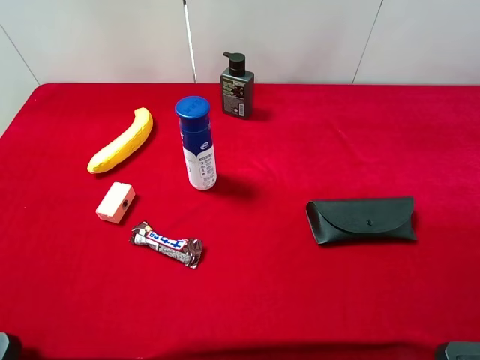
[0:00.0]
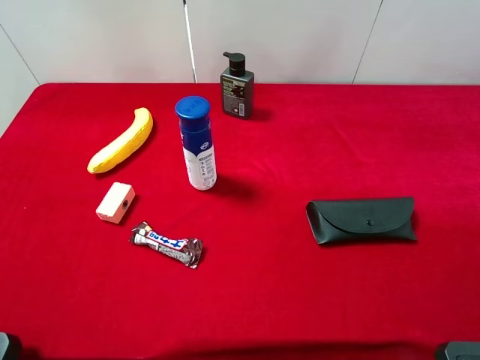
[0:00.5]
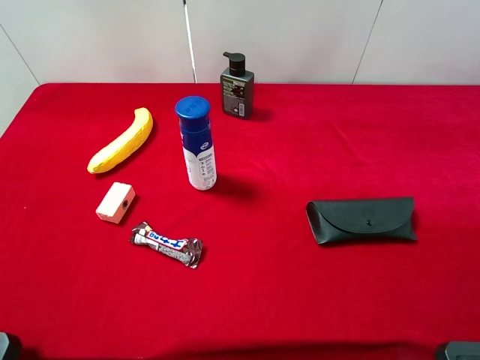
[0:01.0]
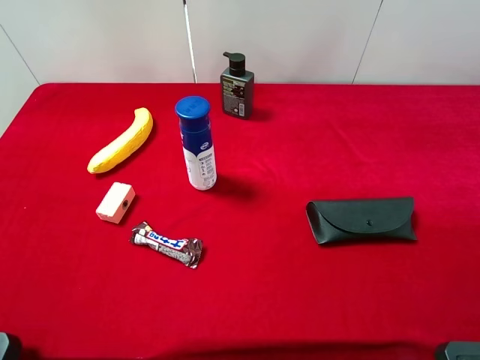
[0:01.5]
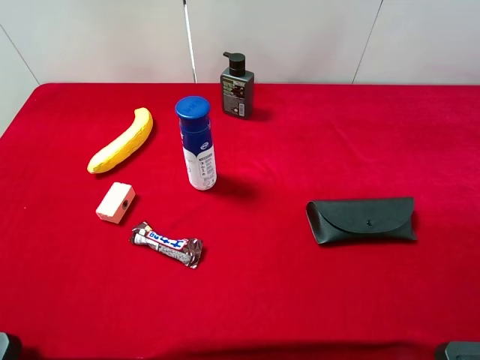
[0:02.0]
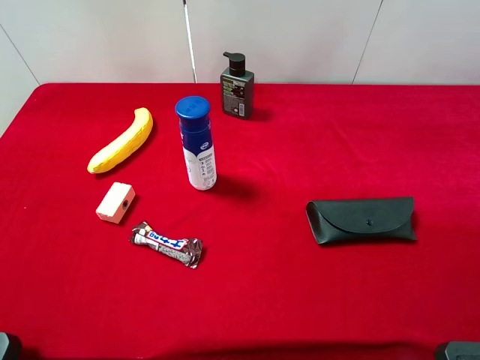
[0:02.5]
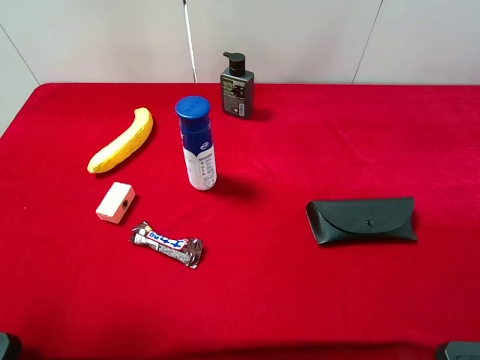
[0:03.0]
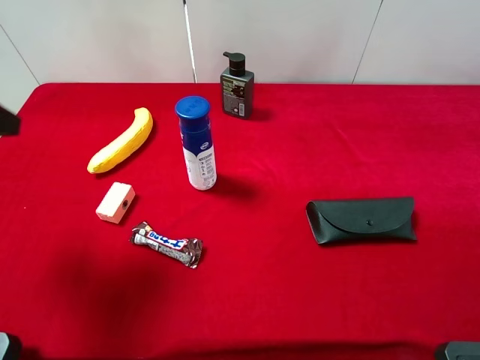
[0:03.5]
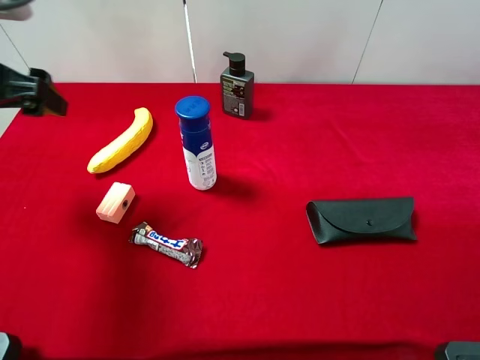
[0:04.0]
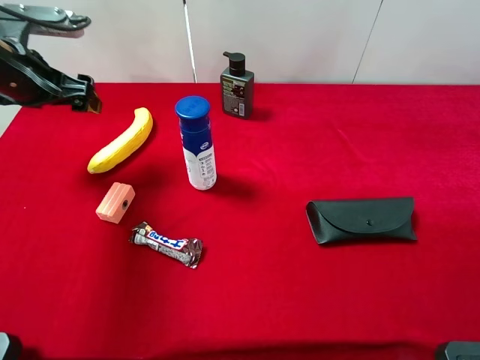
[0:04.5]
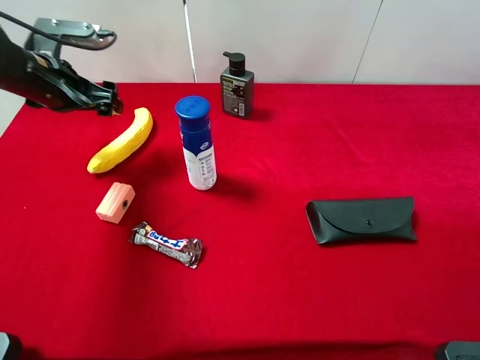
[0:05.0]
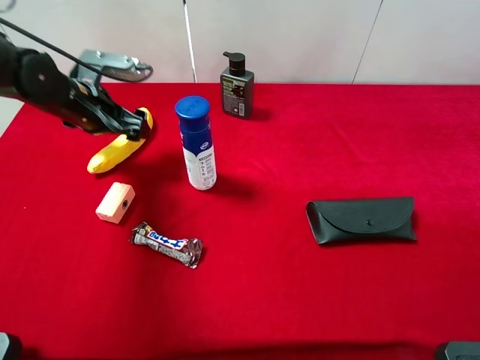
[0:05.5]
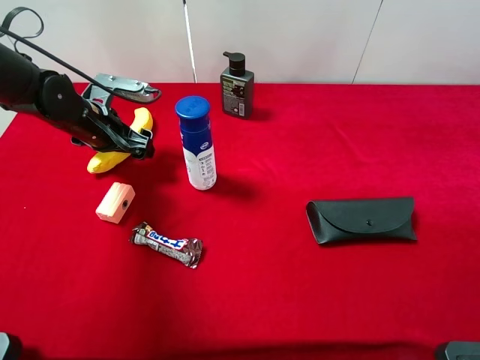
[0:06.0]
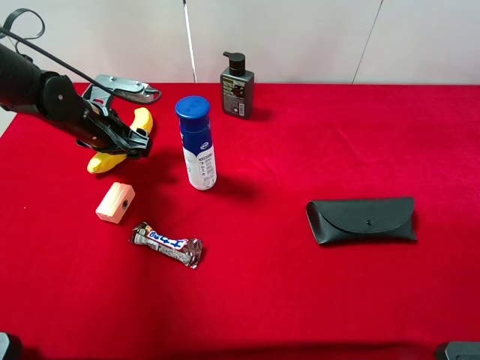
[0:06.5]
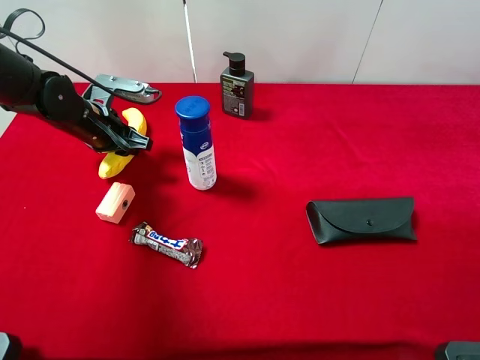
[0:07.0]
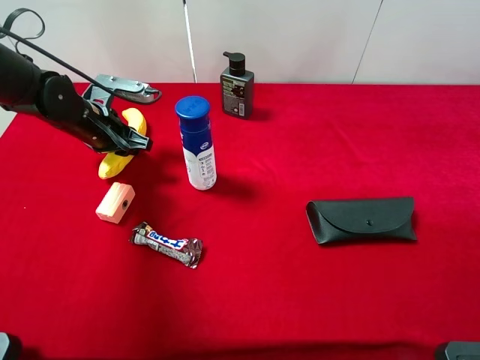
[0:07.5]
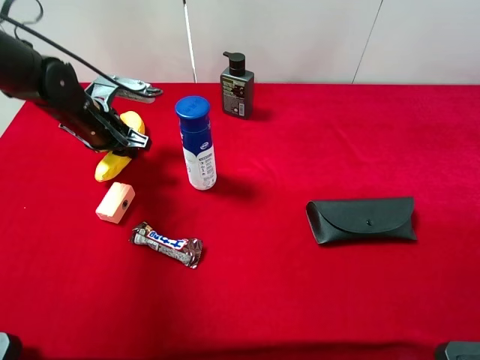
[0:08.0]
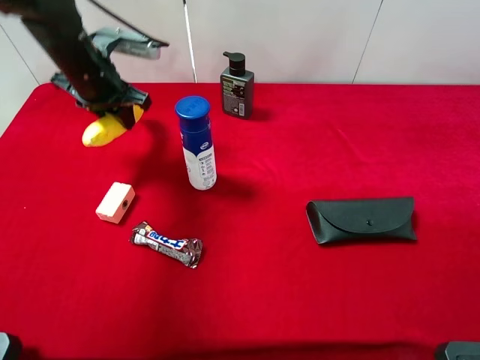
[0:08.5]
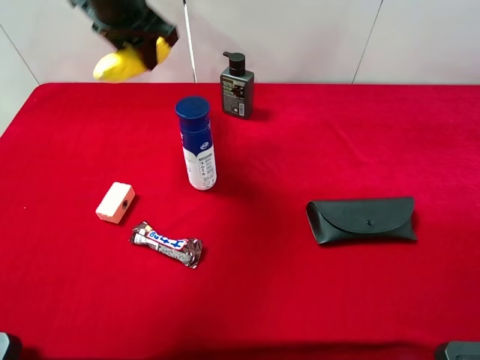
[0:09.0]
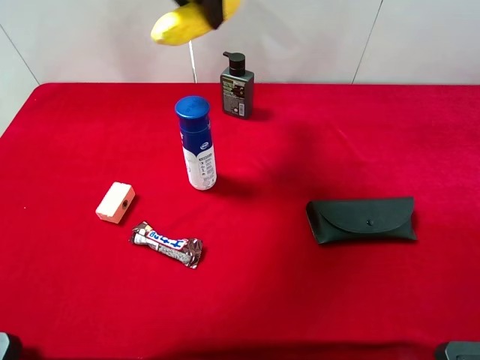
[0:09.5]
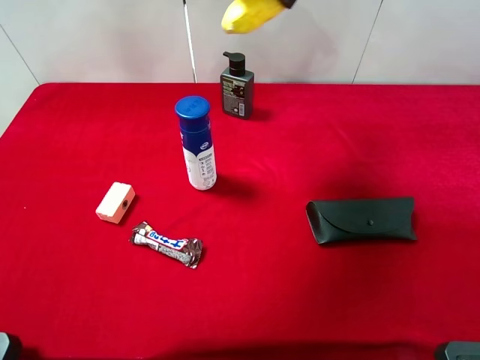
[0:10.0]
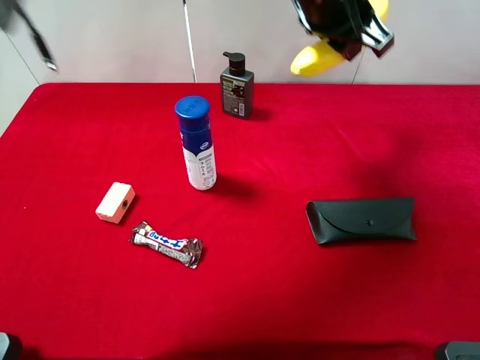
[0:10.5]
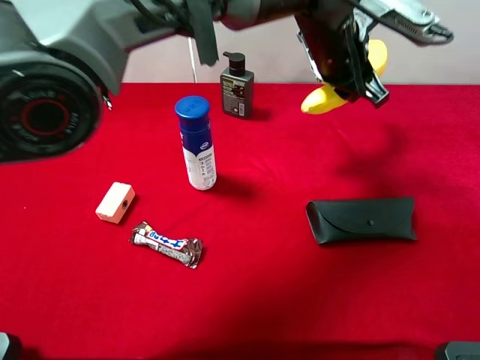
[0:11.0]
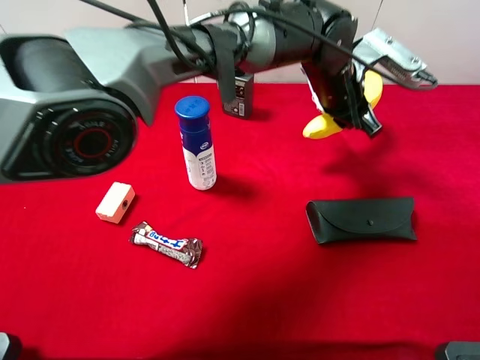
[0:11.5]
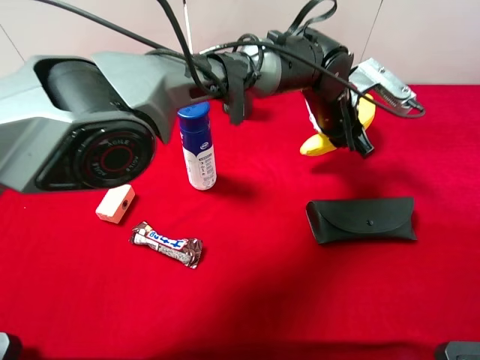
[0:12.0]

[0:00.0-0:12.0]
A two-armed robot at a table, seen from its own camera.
Task of the whole recording: the gripper move the object.
Step, 0:00.0 to 0:07.5: Grasp the banana with the left gripper.
0:00.0 to 0:02.0: The two grippers keep their place.
0:02.0 to 0:04.0: The left gripper is displaced forward by some 25 cm.
0:04.0 to 0:06.0: The left gripper travels downward, forward and to the right by approximately 20 cm.
0:06.0 to 0:08.0: The left gripper closes its fingers.
0:08.0 to 0:10.0: The left gripper heads upward and to the right, covering approximately 35 cm.
0:10.0 to 0:12.0: The left gripper travels downward and to the right by some 25 cm.

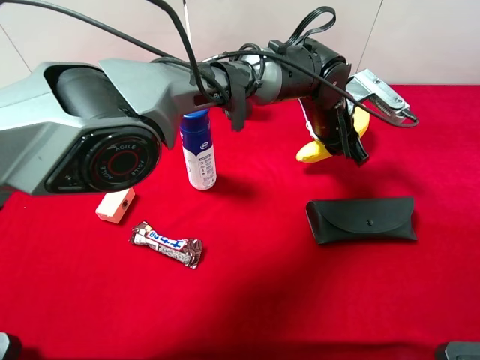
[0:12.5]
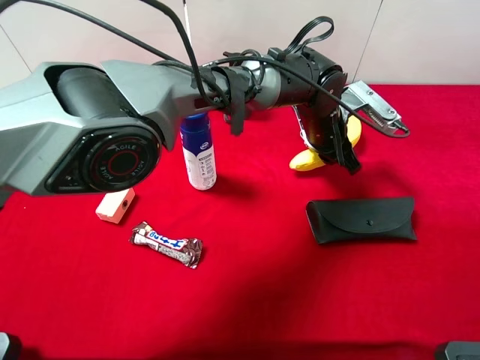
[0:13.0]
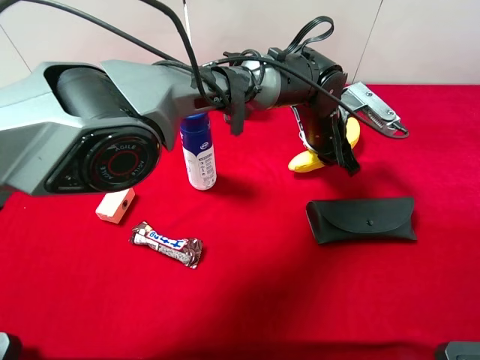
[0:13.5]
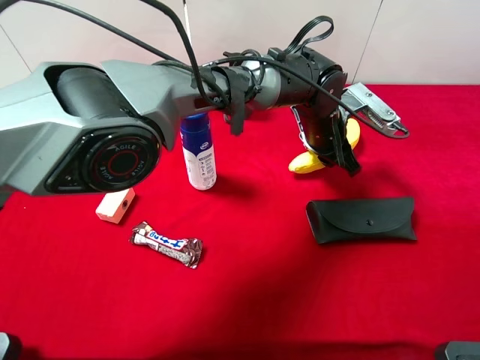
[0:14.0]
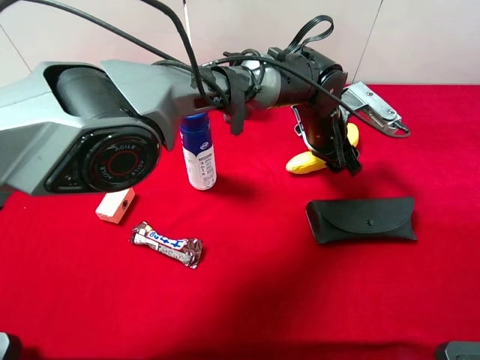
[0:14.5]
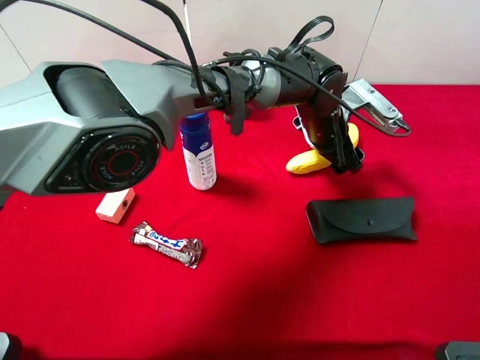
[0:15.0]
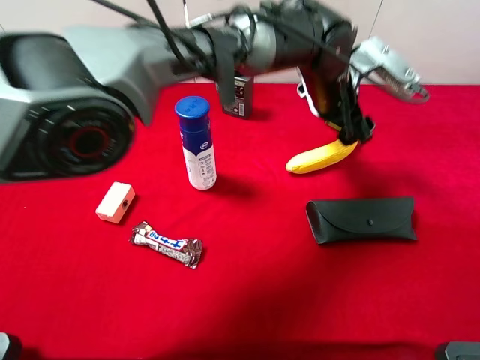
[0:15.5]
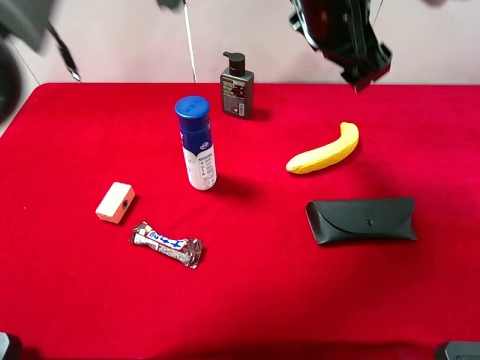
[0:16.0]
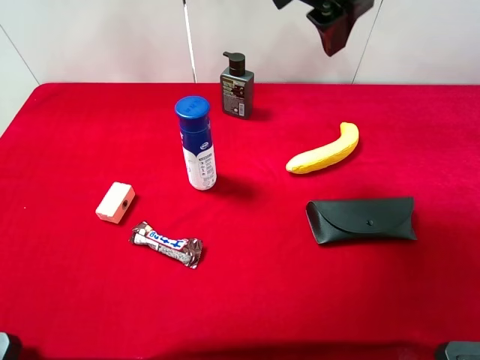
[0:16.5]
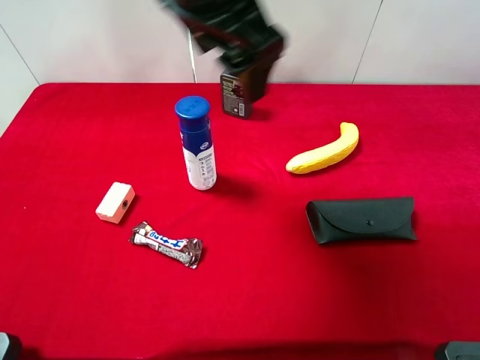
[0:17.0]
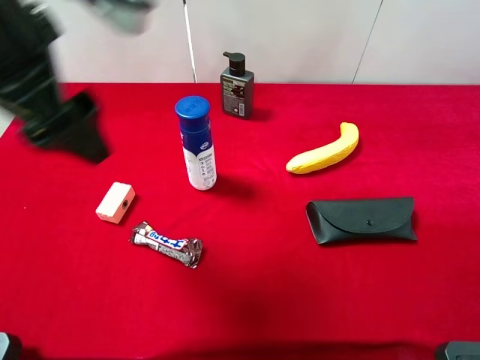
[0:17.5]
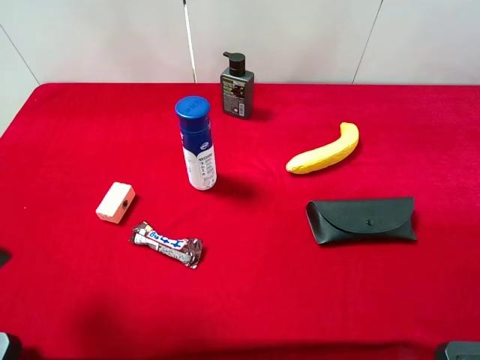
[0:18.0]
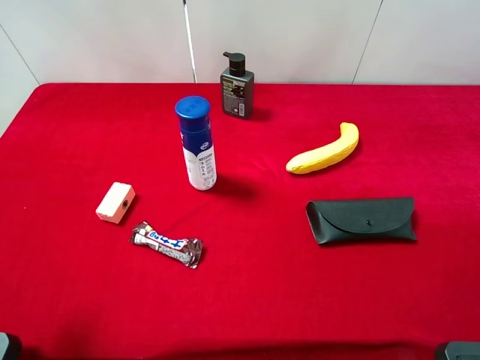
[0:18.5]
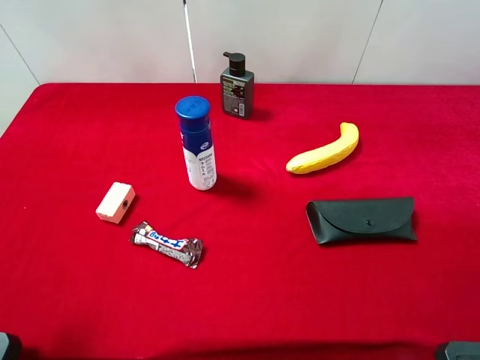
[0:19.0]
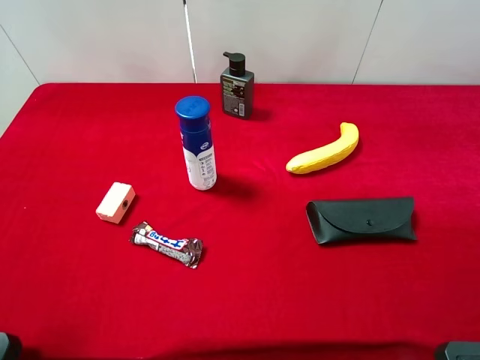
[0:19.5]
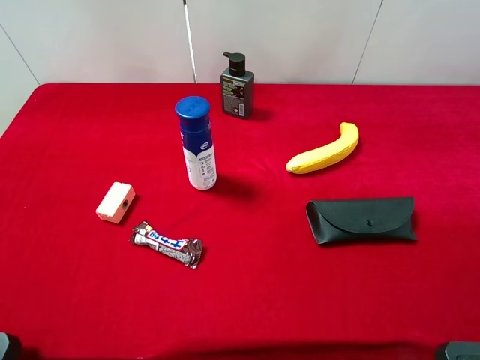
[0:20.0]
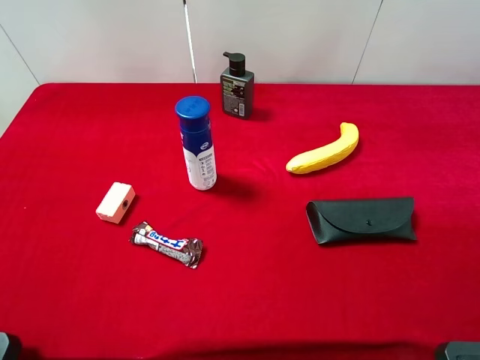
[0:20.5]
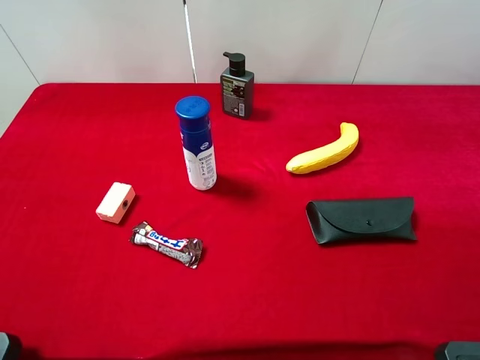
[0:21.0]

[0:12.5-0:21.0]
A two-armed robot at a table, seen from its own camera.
Task of the whole recording: the gripper move the object.
Step, 0:12.5 to 0:15.5: Place the banana on the table with the left gripper.
0:12.5 to 0:14.5: The left gripper opens up.
0:14.5 to 0:16.5: The left gripper moves upward, roughly 25 cm.
0:16.5 to 0:19.0: The left gripper is displaced to the left and backward by about 40 cm.

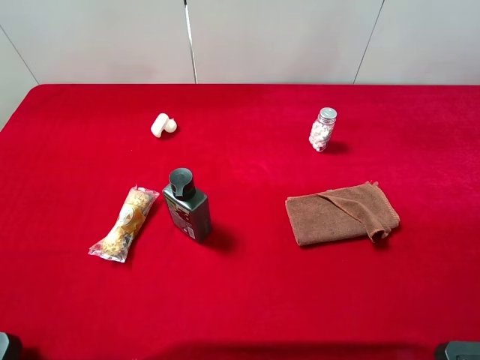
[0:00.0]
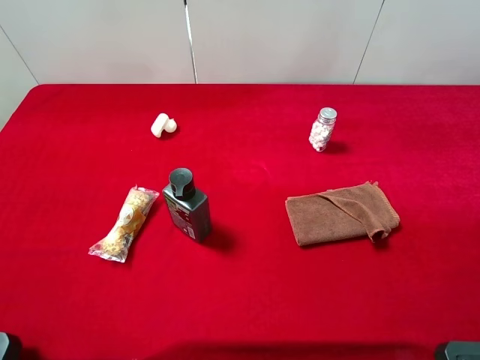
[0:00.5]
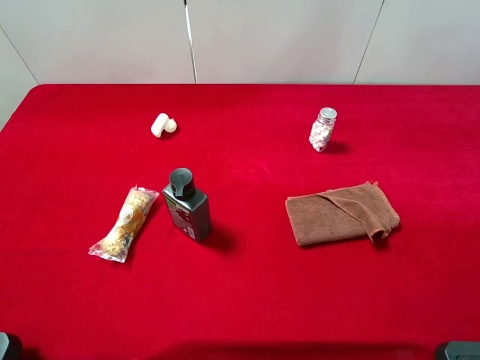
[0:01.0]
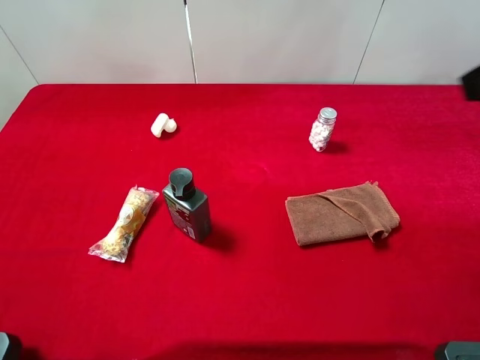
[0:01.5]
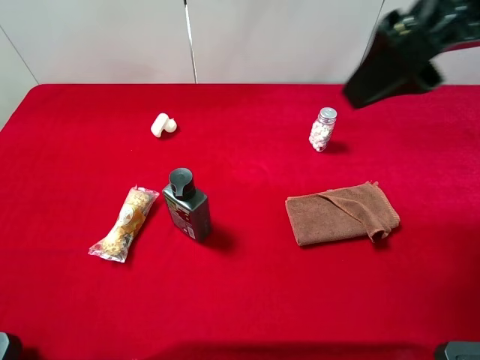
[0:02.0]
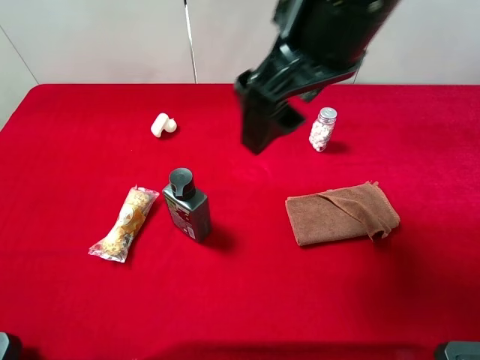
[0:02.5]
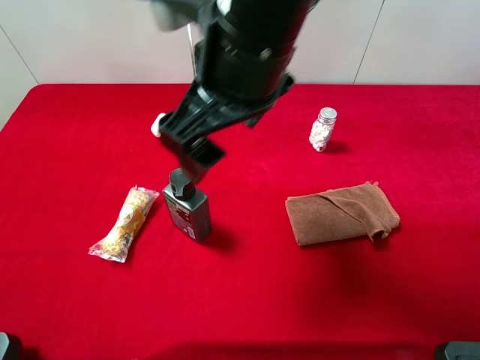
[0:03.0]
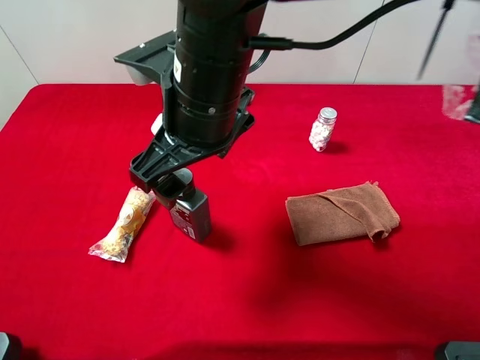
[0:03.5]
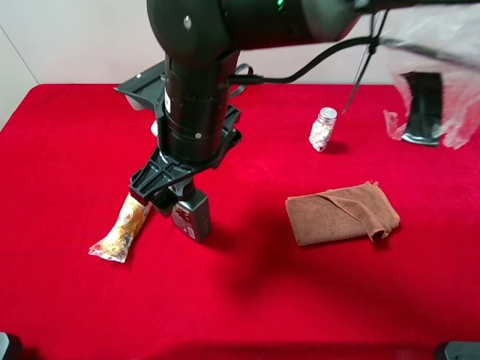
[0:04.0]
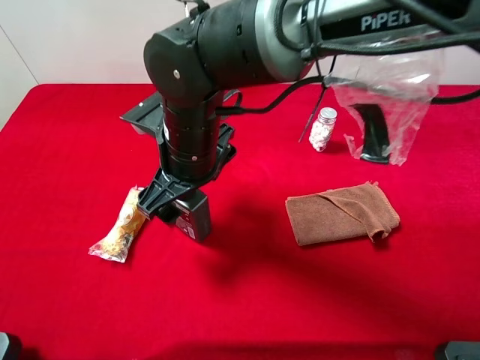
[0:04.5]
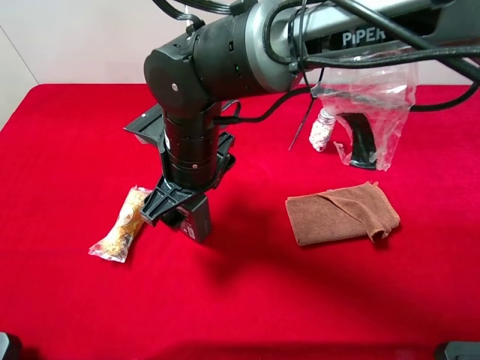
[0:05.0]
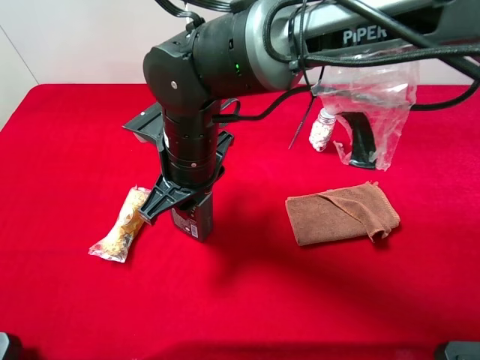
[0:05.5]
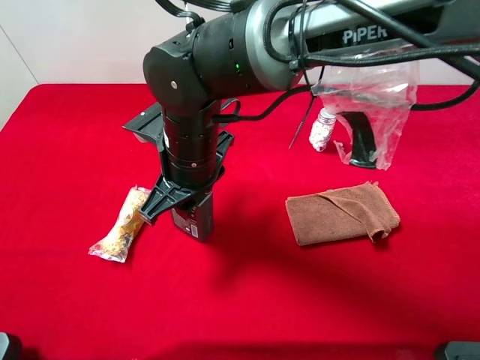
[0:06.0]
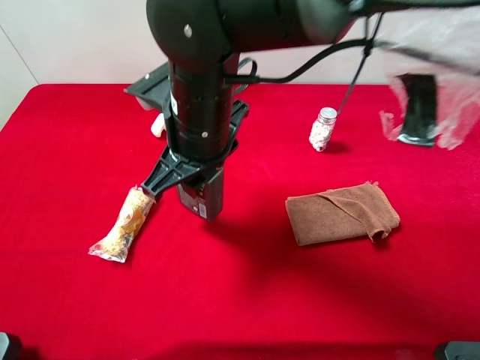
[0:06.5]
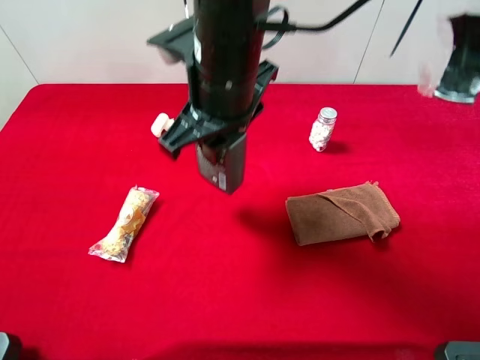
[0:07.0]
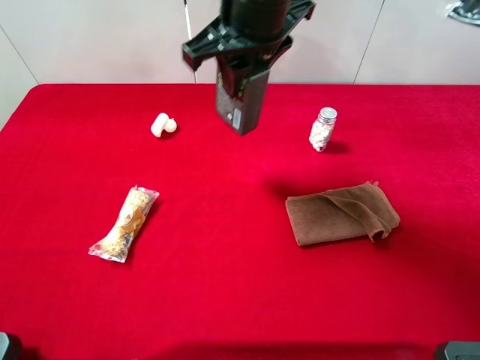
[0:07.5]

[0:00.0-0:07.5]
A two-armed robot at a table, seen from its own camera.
Task of the whole recording: the gripper move the object.
Step, 0:00.0 to 0:05.0: Grasp the hard facial cleanser with the right gripper.
0:00.0 to 0:02.0: The right gripper heads forward and to the left, covering some 25 cm.
0:02.0 to 0:04.0: The right gripper shifts some 25 cm to the left and downward.
0:04.0 to 0:05.5: The right gripper shifts approximately 5 cm downward, and closes its fingers.
0:05.5 to 0:07.5: The right gripper goes roughly 20 cm upward, forward and to the right.
